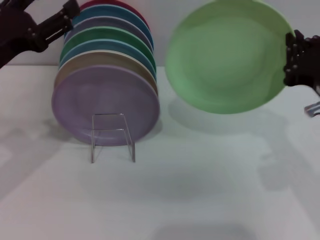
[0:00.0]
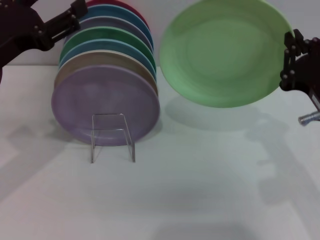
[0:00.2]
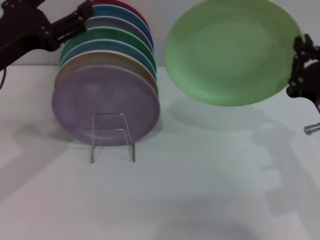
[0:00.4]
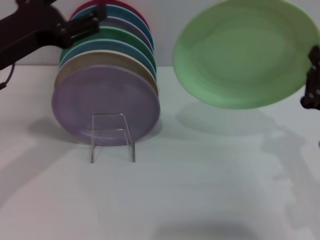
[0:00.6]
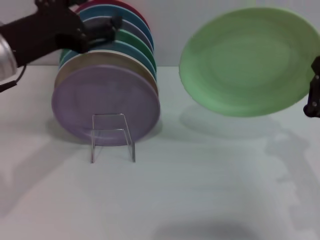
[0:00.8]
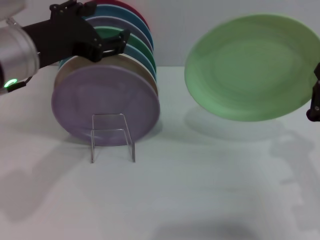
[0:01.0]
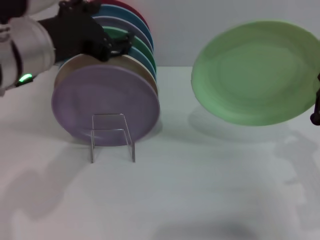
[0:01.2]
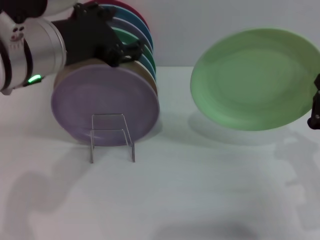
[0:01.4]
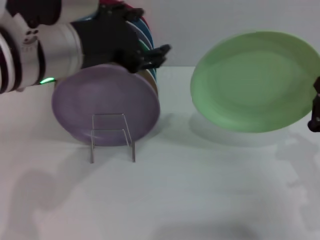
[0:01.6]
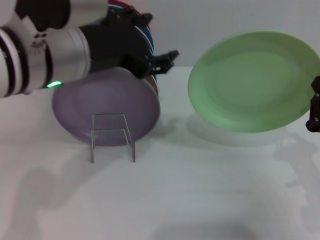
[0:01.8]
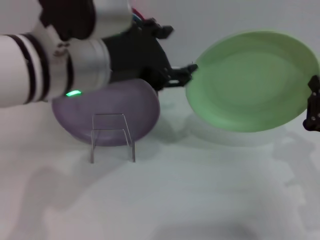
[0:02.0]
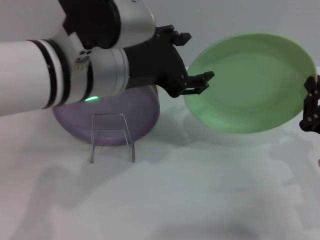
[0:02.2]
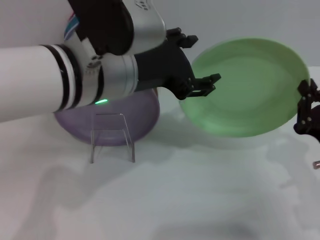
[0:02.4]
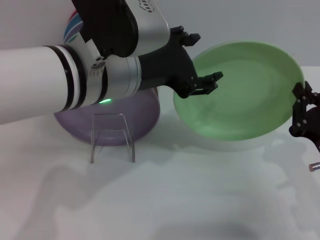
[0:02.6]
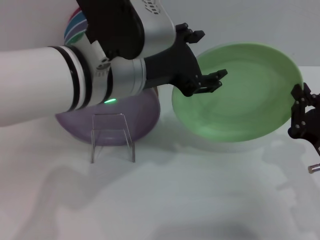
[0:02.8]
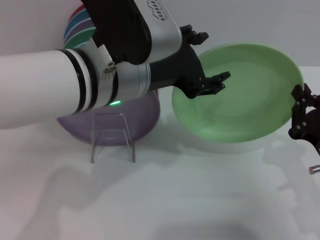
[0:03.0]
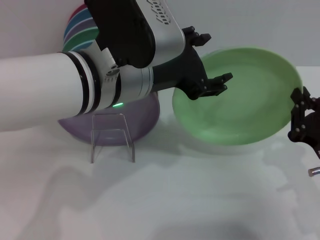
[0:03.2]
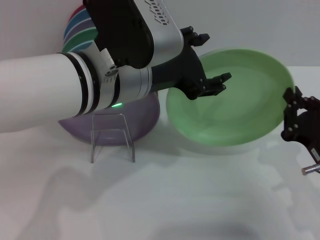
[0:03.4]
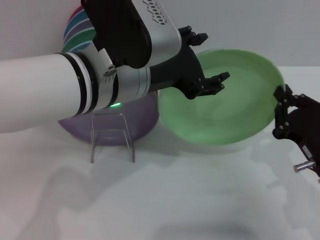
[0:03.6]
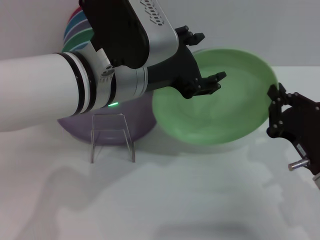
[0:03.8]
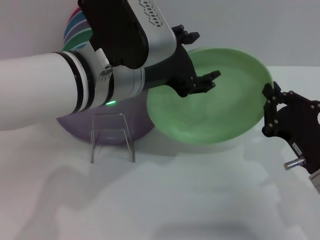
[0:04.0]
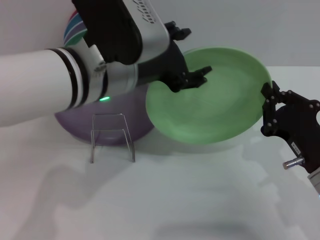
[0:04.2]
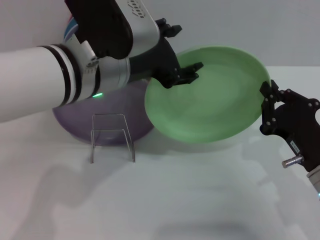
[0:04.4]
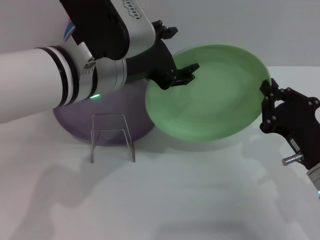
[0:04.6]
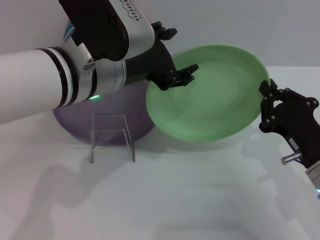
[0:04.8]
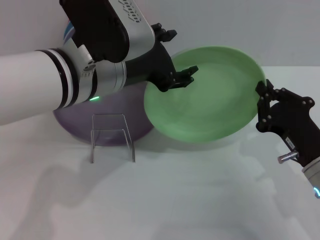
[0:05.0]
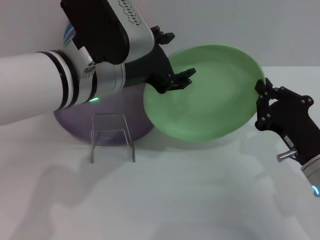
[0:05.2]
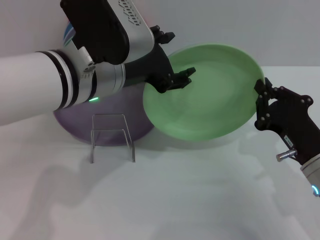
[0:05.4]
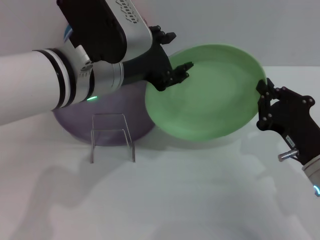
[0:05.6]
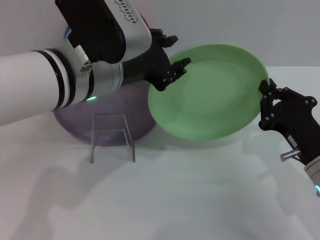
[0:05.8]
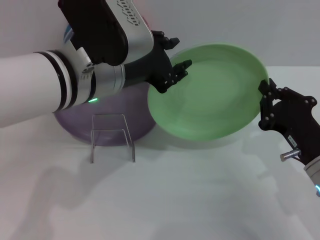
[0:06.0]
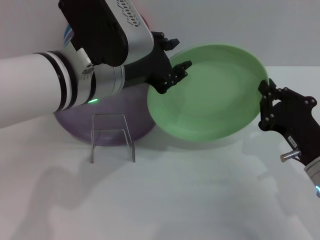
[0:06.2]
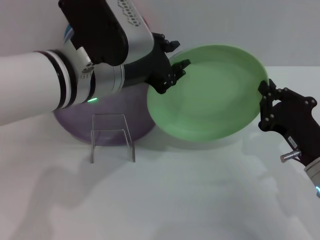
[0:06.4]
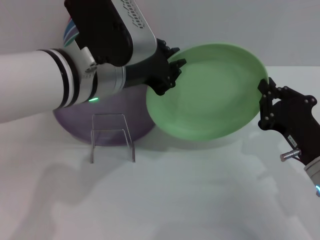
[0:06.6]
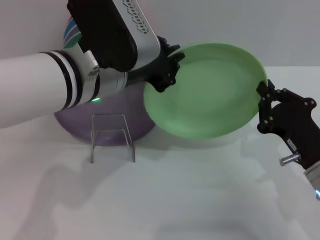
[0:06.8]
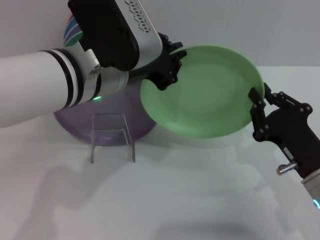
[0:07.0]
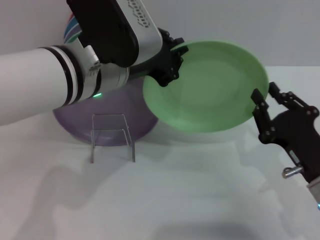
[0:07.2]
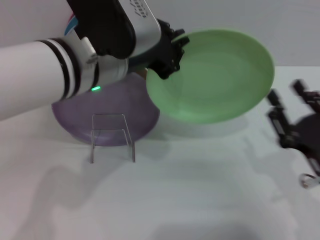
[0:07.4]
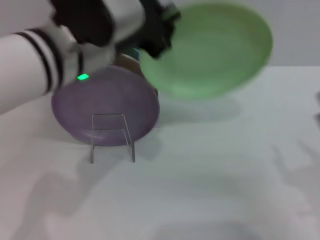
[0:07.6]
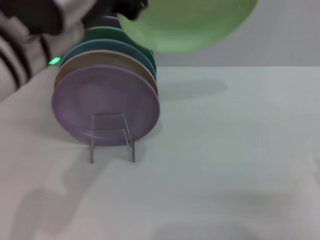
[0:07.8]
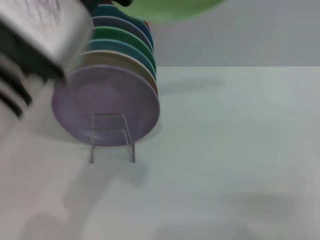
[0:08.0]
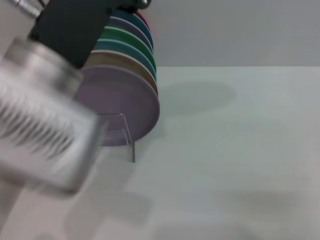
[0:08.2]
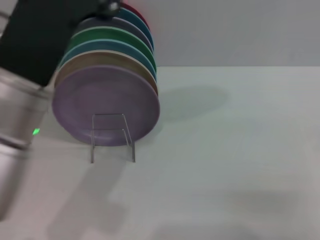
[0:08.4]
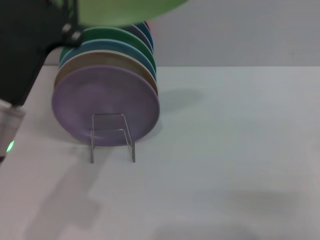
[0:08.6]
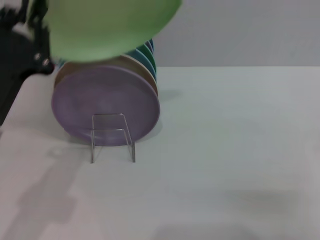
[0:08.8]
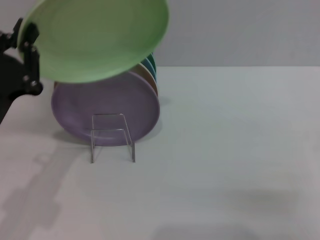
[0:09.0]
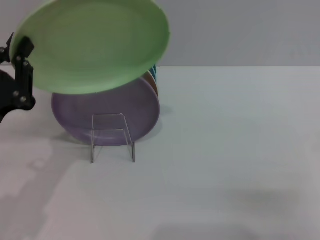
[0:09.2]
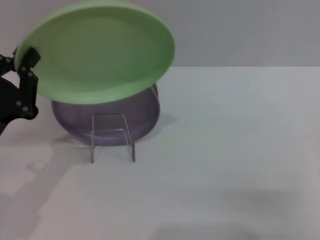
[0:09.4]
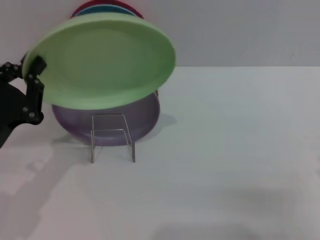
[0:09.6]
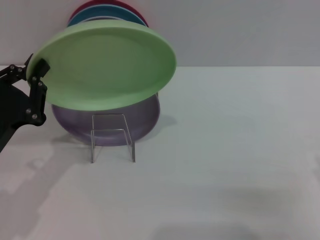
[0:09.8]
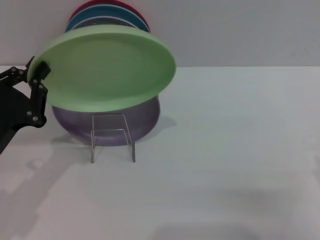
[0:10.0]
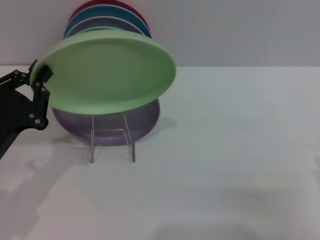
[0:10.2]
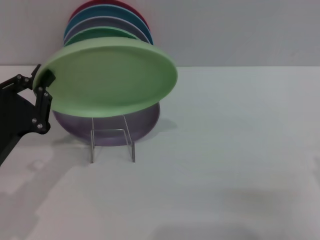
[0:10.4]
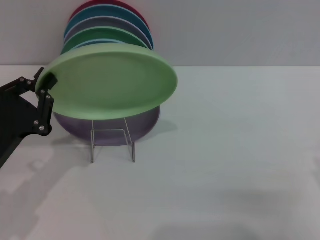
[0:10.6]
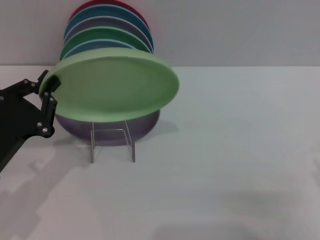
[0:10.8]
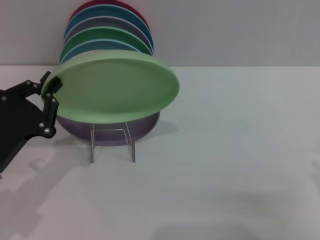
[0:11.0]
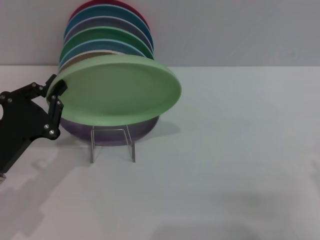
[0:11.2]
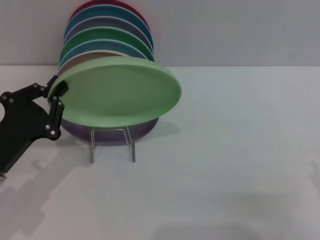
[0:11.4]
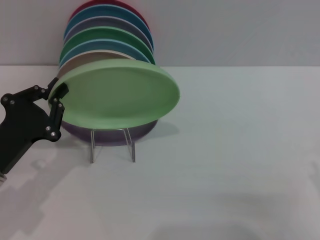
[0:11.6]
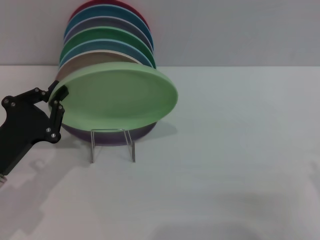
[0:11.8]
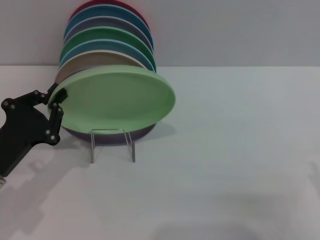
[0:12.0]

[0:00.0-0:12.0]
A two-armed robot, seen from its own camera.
Task of the whole recording: Grip the plate with one hand, pass it to the other, then set it on the shelf.
Step, 0:00.0 to 0:07.6: Pass the plate from the right gripper to the left gripper.
0:00.0 to 0:01.6: The right gripper travels downward by some 10 cm. Meanwhile the left gripper heads to the right and upward, covering approximately 15 cm.
0:01.6 to 0:03.0: The left gripper is displaced to the right by some 5 cm.
0:04.4 to 0:06.0: The left gripper closes its fingers.
0:06.0 to 0:07.6: The left gripper closes its fingers. The right gripper heads backward, covering about 10 cm, and opens its fingers.
0:07.6 to 0:09.0: The right gripper changes place by about 5 cm, and opens its fingers. Meanwhile the left gripper moves to the left, downward and backward, about 20 cm.
0:09.0 to 0:10.4: The left gripper heads downward, covering about 5 cm.
0:10.4 to 0:12.0: The grippers make only small movements.

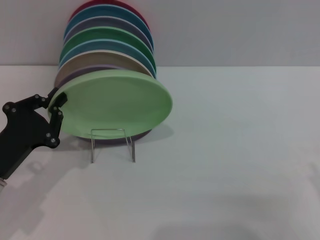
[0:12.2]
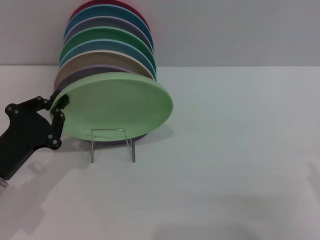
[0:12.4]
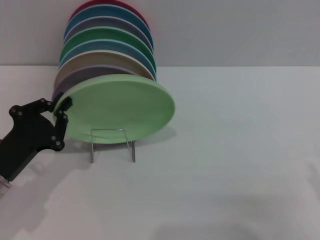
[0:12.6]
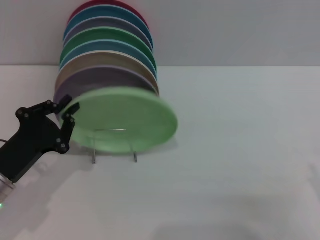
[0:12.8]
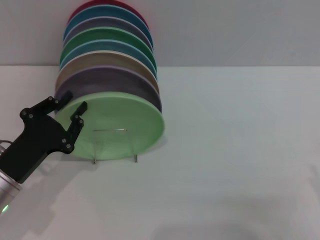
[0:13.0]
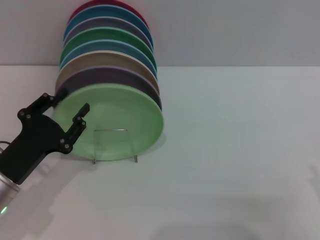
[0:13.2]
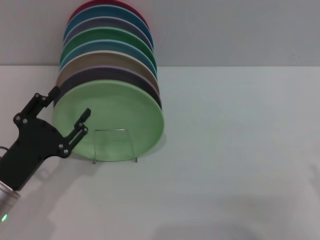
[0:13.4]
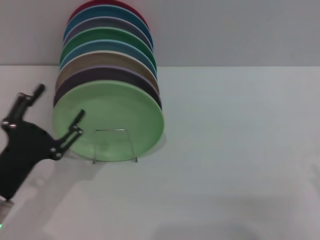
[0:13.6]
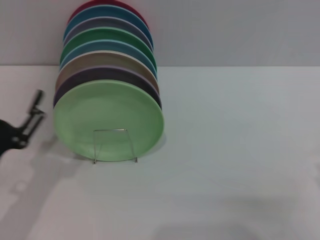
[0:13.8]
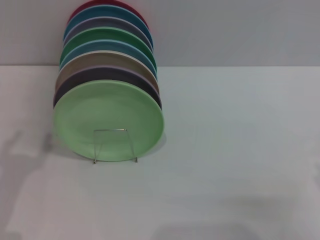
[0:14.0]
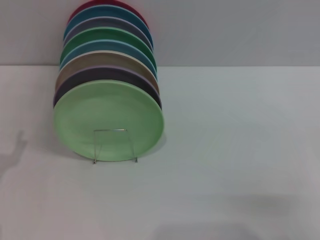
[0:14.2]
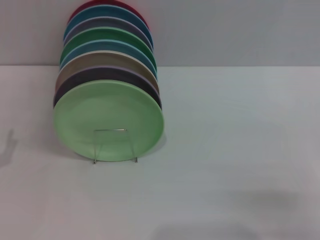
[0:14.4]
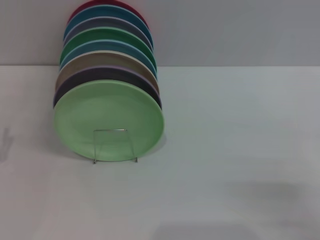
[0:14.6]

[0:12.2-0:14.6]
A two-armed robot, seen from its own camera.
Task of the whole recording: Grip the plate with one hand, pass it to the other, then set it on the shelf.
0:12.2 to 0:13.4: The left gripper opens up.
0:13.4 to 0:14.6: The left gripper is displaced to the left by about 10 cm, and opens.
